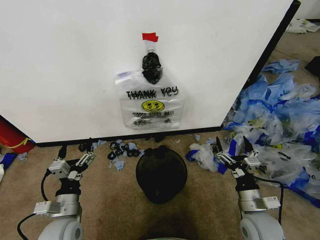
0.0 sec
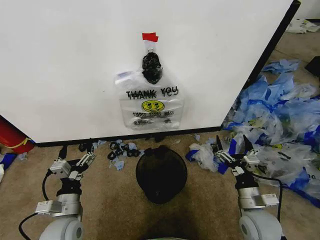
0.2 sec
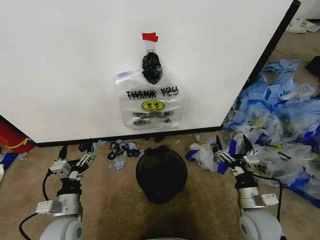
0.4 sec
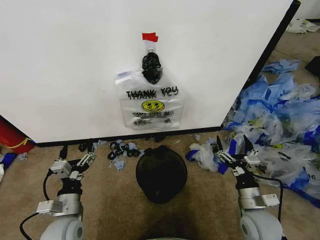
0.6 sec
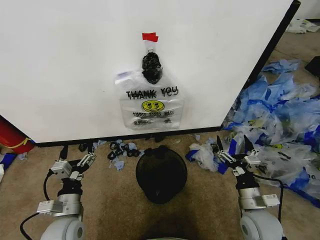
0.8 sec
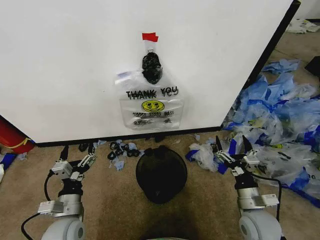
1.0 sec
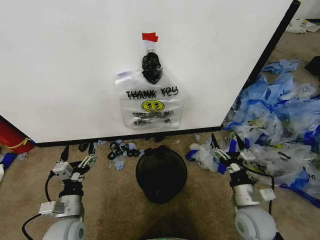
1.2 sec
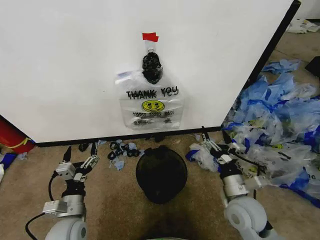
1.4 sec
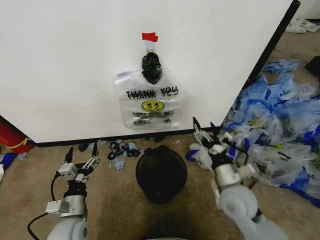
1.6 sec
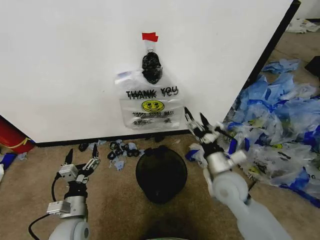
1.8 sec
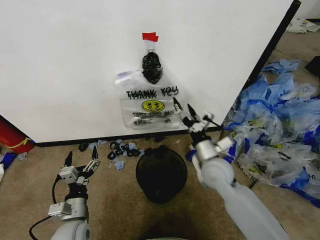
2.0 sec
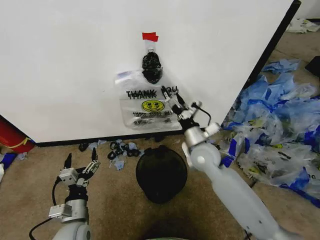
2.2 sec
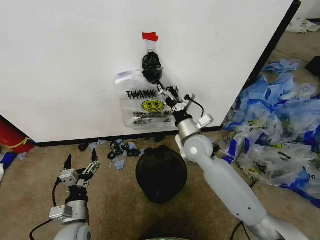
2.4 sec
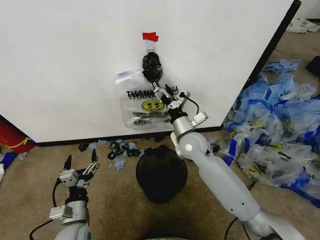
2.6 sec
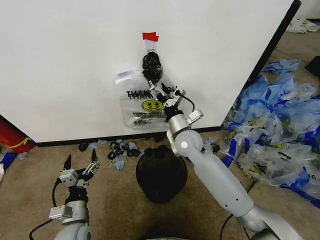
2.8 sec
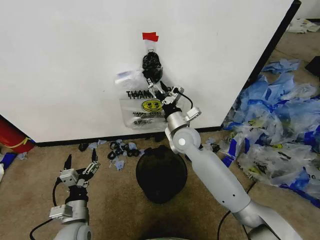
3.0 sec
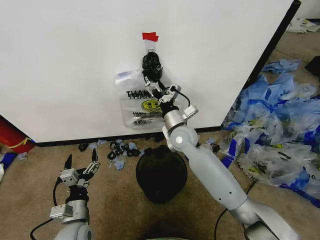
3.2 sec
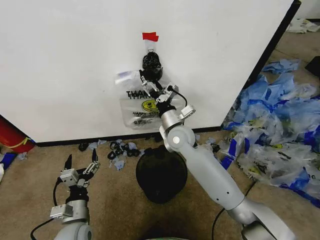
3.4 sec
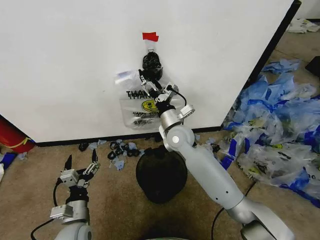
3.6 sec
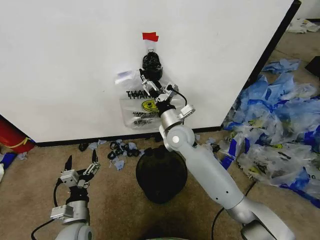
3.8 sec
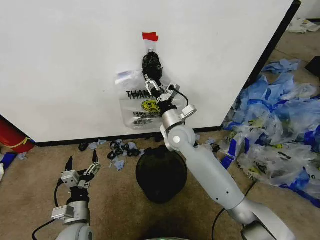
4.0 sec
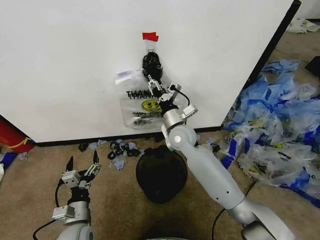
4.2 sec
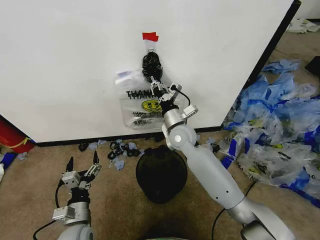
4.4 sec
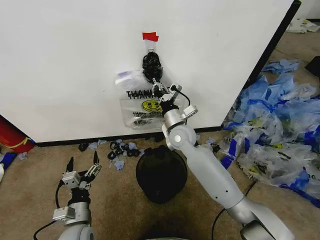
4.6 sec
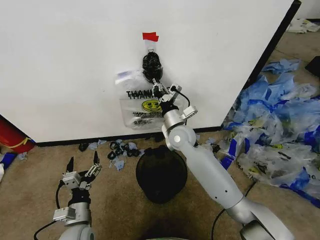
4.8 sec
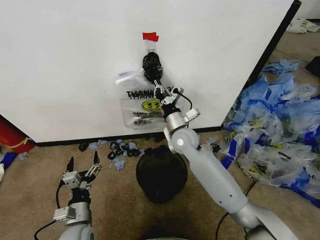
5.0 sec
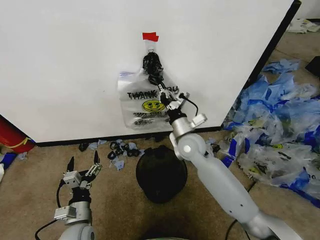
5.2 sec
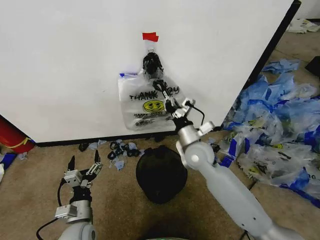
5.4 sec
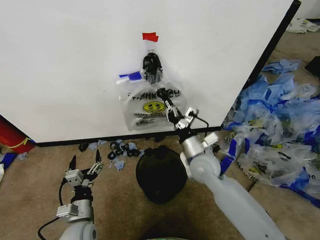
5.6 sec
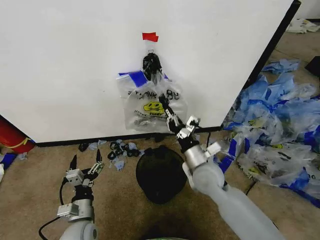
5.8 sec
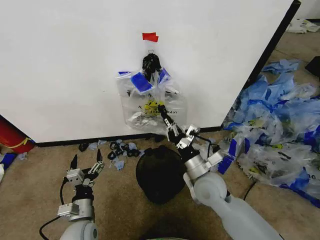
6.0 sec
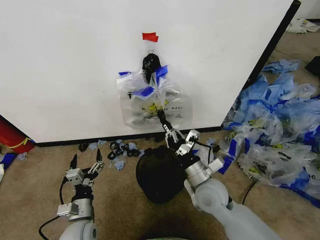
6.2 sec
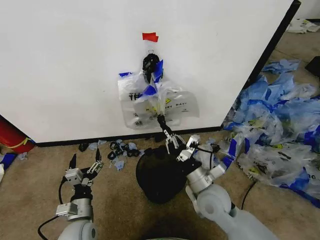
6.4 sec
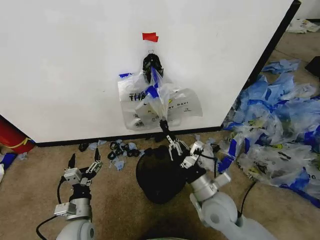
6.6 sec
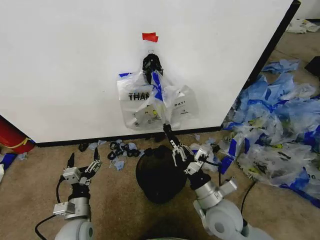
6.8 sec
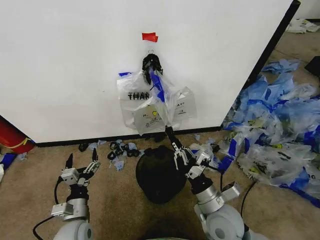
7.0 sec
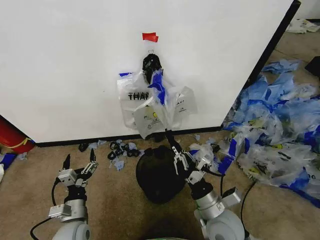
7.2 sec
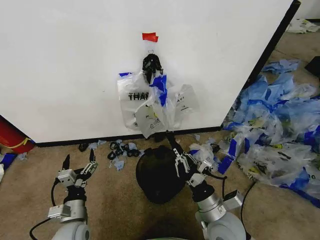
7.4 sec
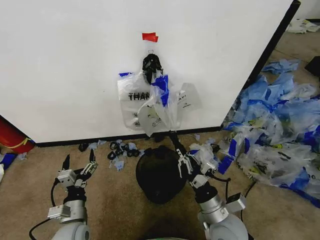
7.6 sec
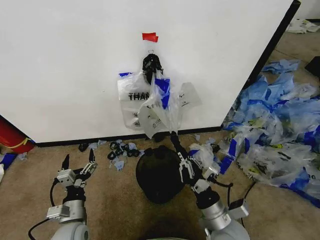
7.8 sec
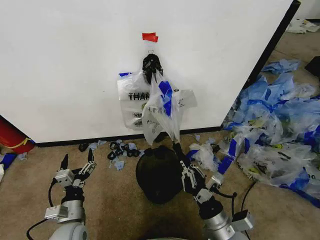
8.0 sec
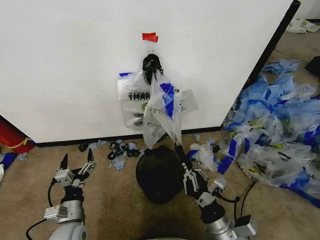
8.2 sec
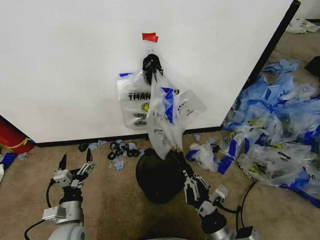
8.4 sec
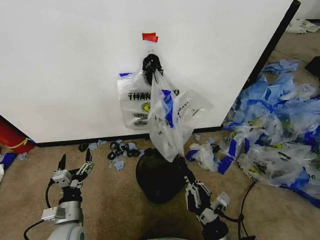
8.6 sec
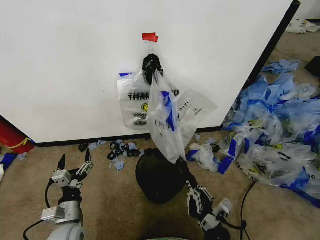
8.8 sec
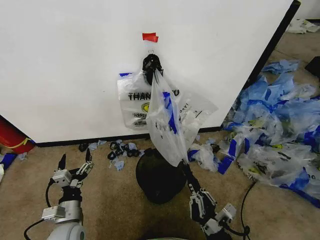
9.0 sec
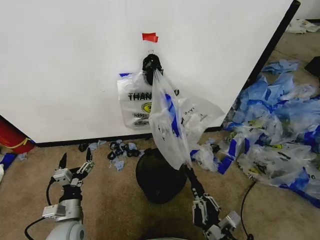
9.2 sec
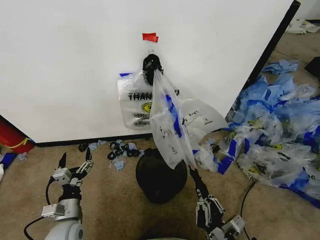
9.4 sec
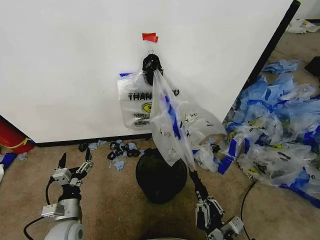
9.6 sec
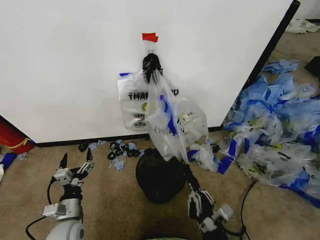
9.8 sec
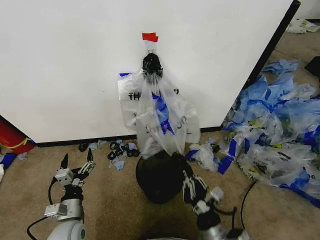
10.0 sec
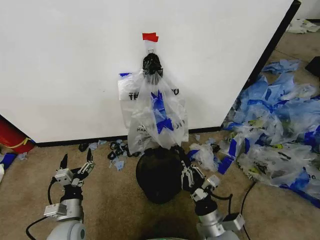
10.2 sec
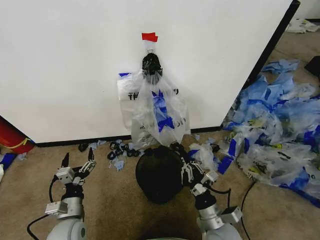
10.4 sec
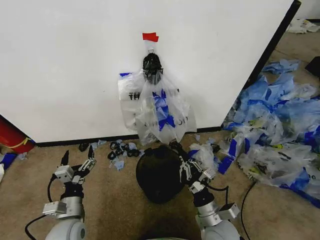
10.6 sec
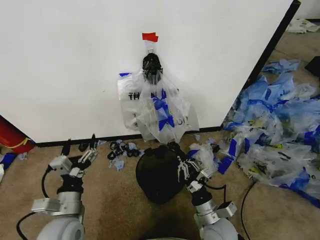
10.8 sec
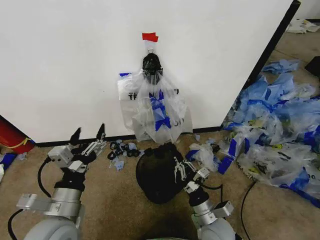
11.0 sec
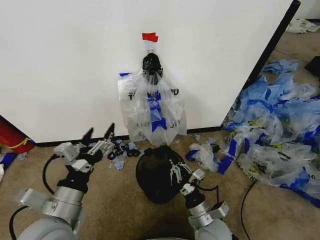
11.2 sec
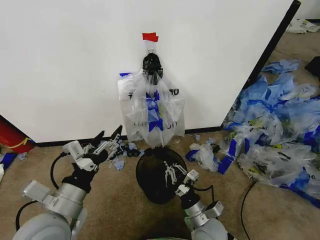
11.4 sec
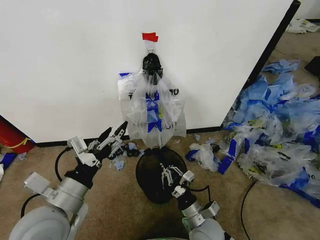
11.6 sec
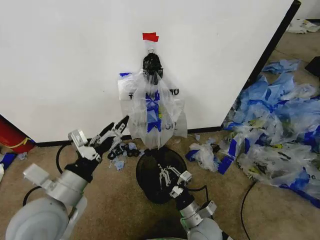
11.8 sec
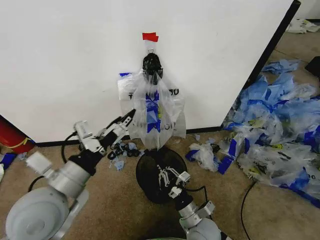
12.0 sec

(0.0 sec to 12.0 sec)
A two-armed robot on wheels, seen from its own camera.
Task of the whole recording: Pick up the garbage bag from the wall and place it over the trash bin.
1.6 sec - 3.0 sec: The right gripper moves forward and to the left, about 25 cm.
3.0 sec - 4.4 sec: The right gripper closes its fingers.
4.4 sec - 6.0 sec: The right gripper heads backward and to the right, covering about 15 cm.
6.0 sec - 7.6 sec: The right gripper travels backward by about 10 cm.
7.6 sec - 9.0 sec: The right gripper moves backward, roughly 10 cm.
9.0 sec - 10.4 sec: The right gripper shifts about 10 cm forward.
10.4 sec - 12.0 sec: The left gripper shifts approximately 25 cm upward. The right gripper shifts by approximately 5 cm.

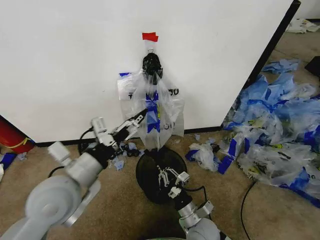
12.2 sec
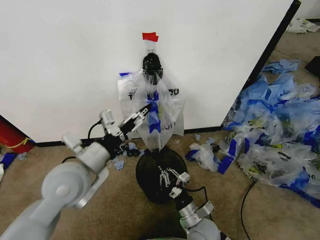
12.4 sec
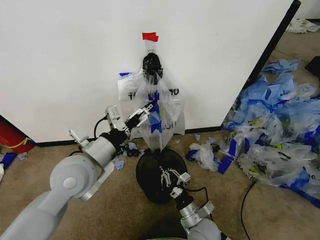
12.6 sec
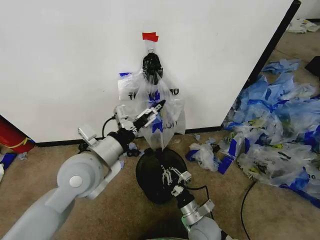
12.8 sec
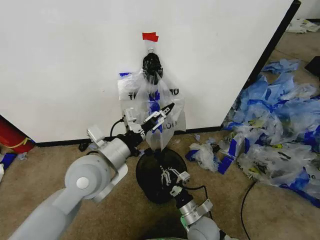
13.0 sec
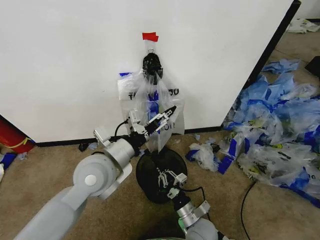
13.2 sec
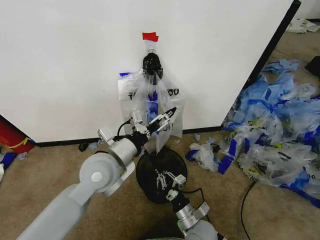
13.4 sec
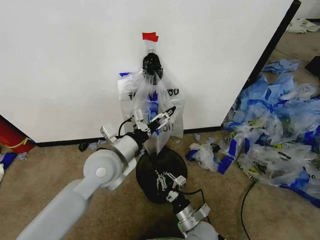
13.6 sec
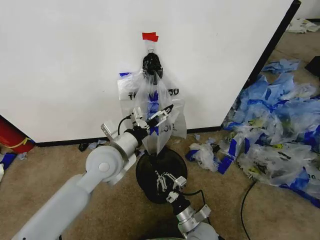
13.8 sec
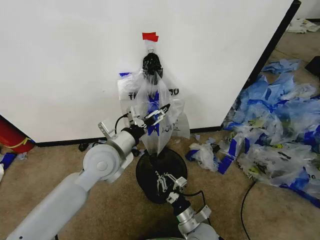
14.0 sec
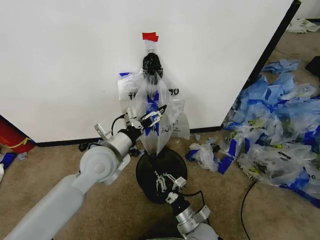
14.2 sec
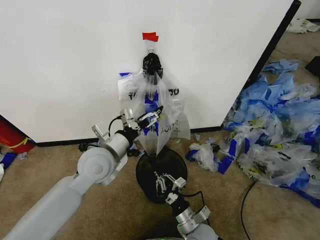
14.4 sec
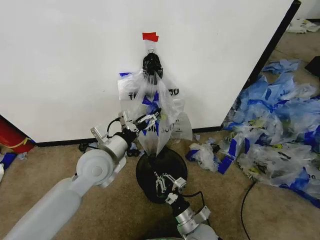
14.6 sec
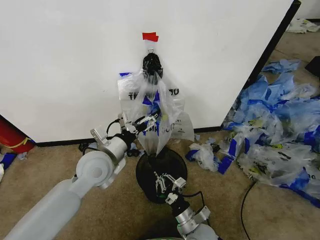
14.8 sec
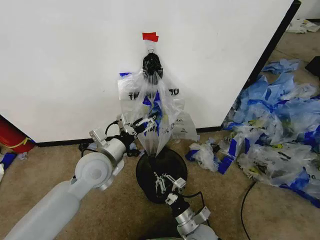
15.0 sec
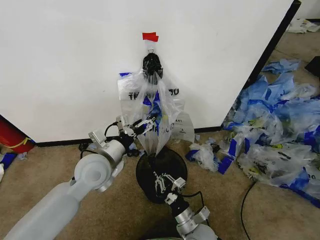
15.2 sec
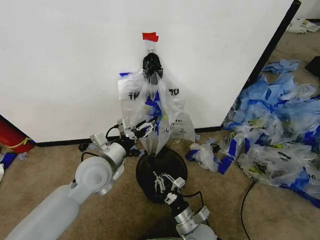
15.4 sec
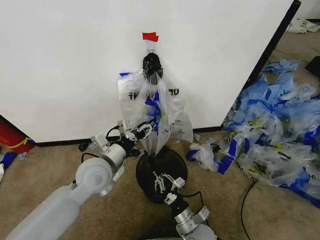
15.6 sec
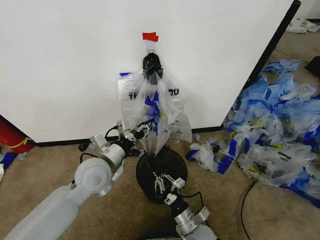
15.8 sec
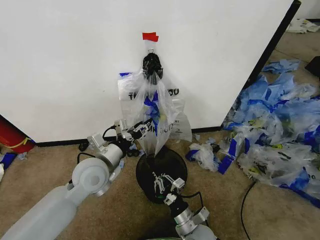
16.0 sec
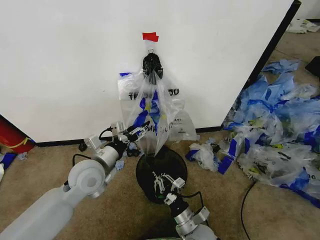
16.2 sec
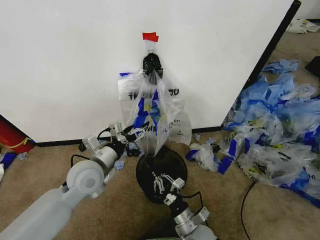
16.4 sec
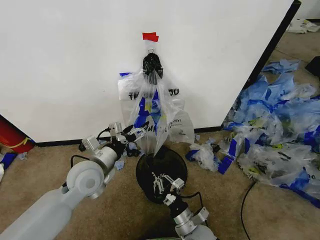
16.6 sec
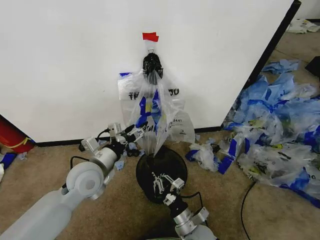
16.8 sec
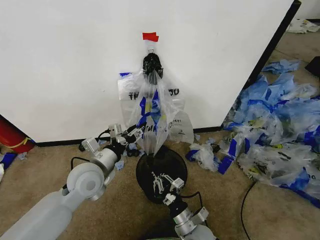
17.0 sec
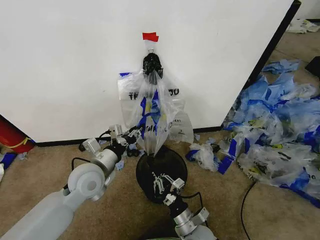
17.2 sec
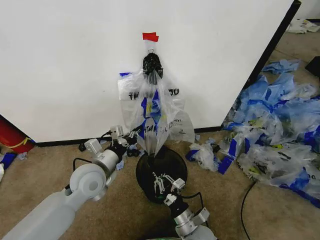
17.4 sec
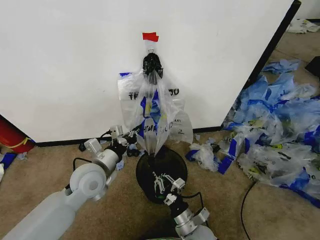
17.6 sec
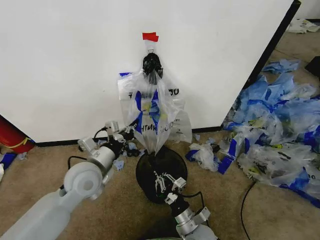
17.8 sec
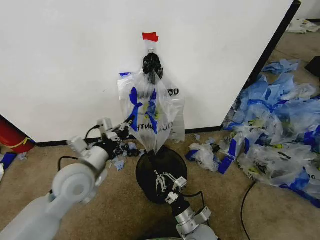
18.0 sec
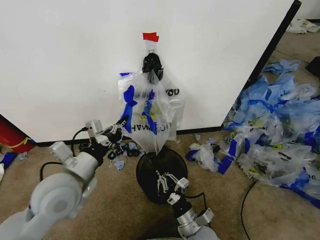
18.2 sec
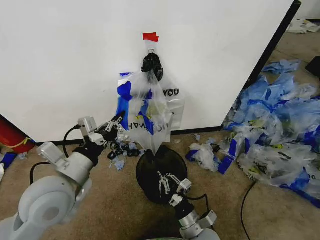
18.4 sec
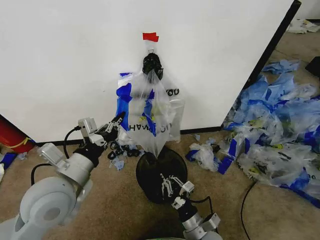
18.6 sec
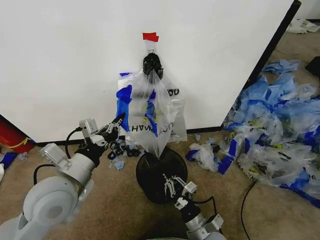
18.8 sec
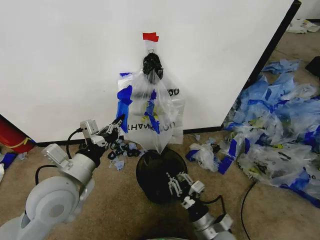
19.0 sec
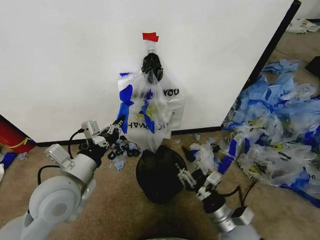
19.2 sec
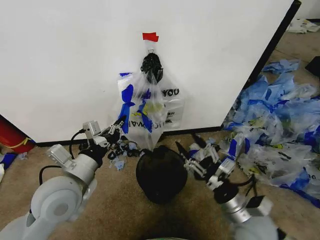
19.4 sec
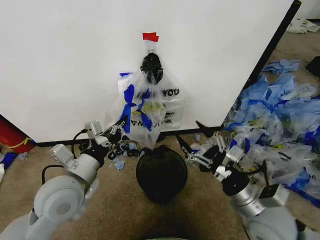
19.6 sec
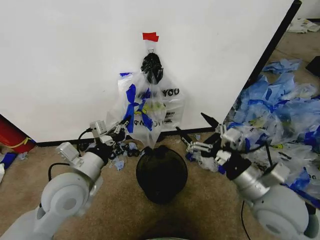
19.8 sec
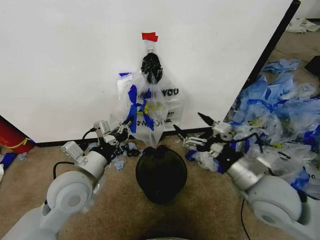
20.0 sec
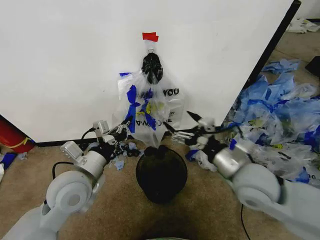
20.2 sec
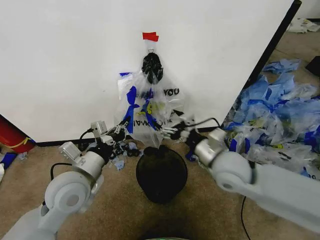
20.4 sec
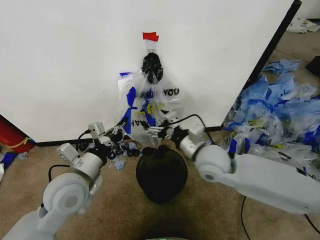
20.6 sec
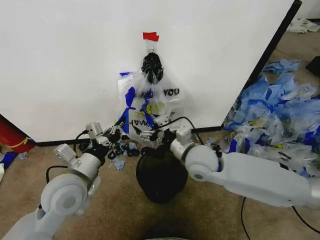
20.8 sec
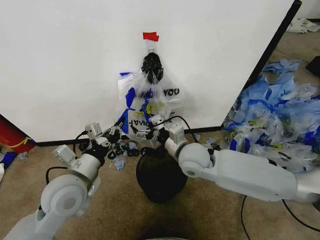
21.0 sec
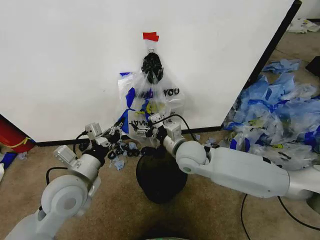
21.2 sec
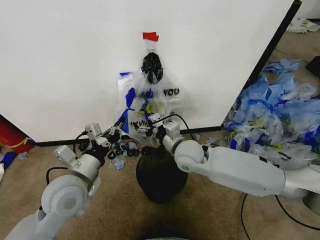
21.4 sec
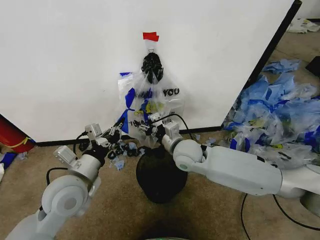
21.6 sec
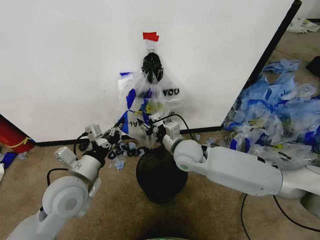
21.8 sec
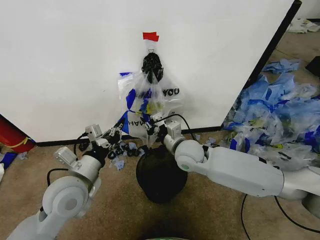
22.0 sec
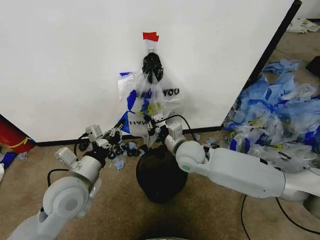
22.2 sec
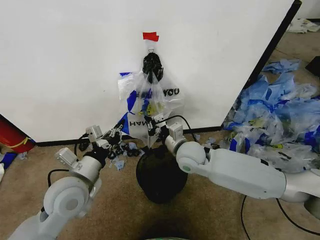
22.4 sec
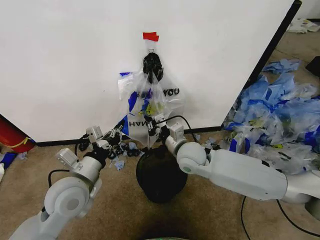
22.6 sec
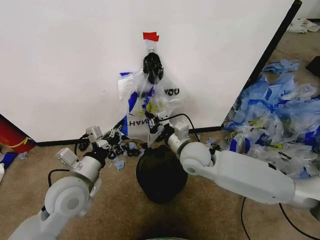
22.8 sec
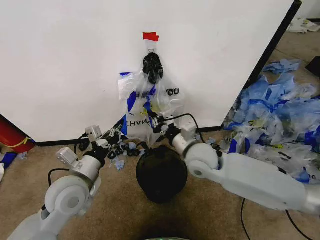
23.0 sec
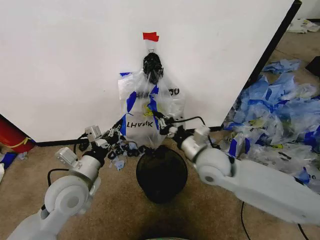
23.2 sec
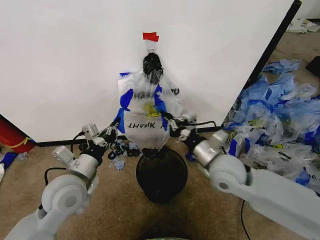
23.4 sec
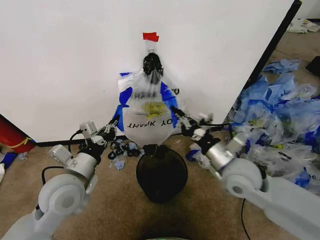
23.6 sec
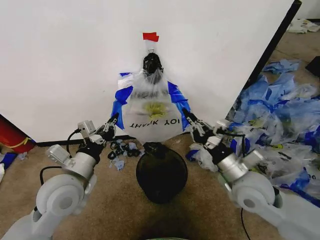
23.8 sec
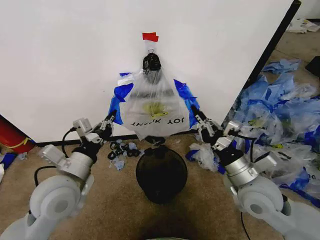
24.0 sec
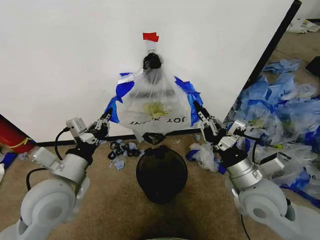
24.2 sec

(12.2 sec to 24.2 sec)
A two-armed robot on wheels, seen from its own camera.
Task of the whole recording: Pick up the garbage bag from the wall and place it over the trash bin.
12.2 sec - 13.8 sec: The left gripper is displaced forward and to the right by roughly 10 cm.
13.8 sec - 15.2 sec: There are only small adjustments of the grippers.
15.2 sec - 16.6 sec: The left gripper closes, then opens again.
16.6 sec - 18.2 sec: The left gripper shifts roughly 5 cm backward, and closes.
18.2 sec - 19.8 sec: The right gripper moves upward and to the right, approximately 25 cm, and opens.
19.8 sec - 21.2 sec: The right gripper heads forward and to the left, covering approximately 25 cm.
21.2 sec - 22.6 sec: The right gripper closes up.
22.6 sec - 24.2 sec: The right gripper heads backward and to the right, covering some 20 cm; the left gripper ends up approximately 5 cm from where it was.
